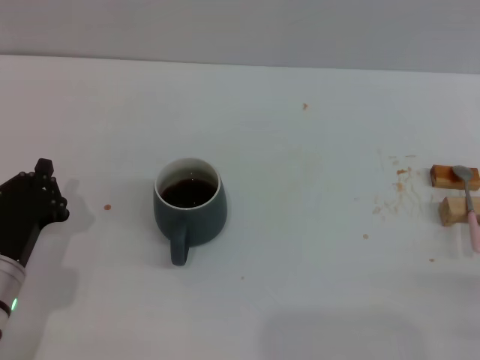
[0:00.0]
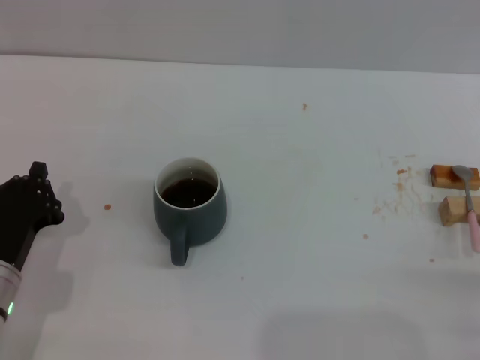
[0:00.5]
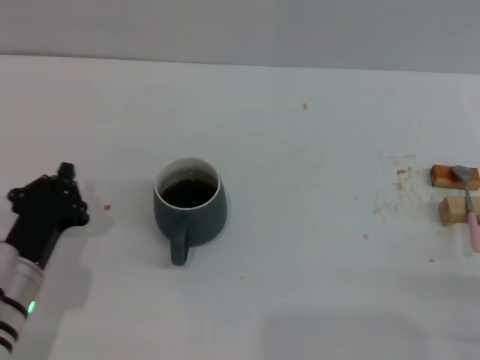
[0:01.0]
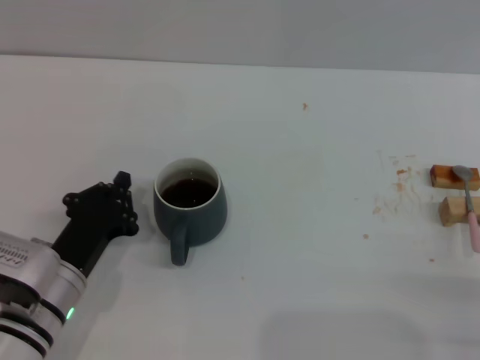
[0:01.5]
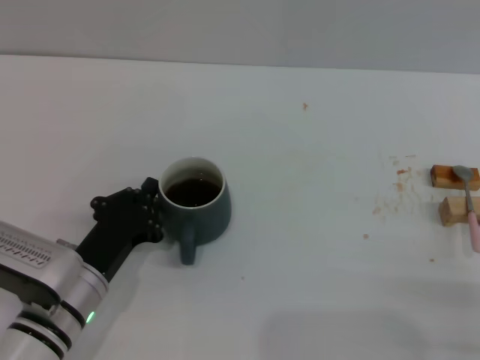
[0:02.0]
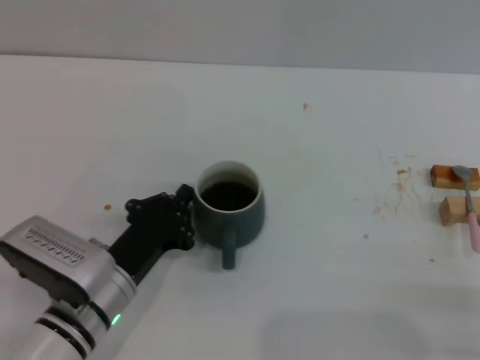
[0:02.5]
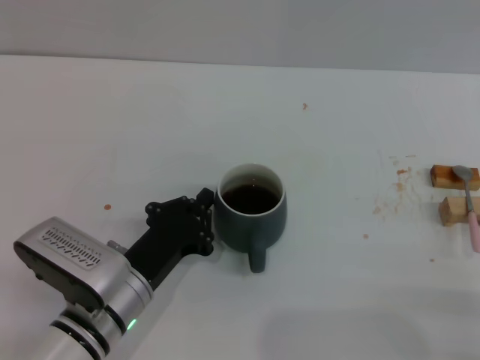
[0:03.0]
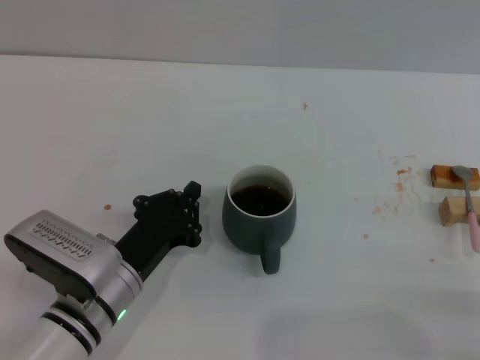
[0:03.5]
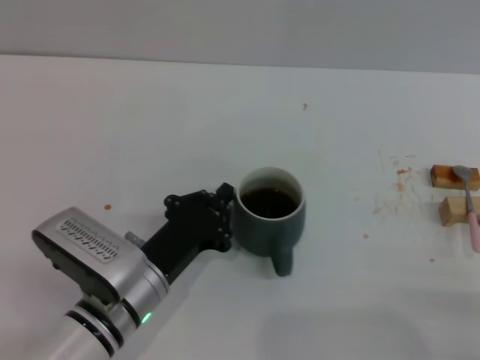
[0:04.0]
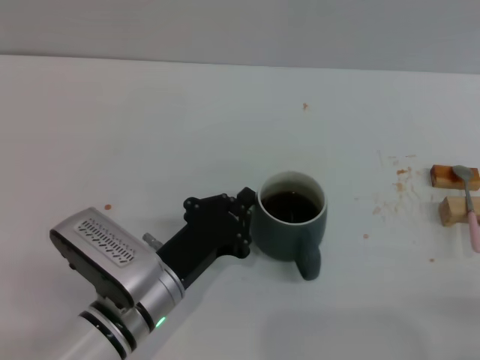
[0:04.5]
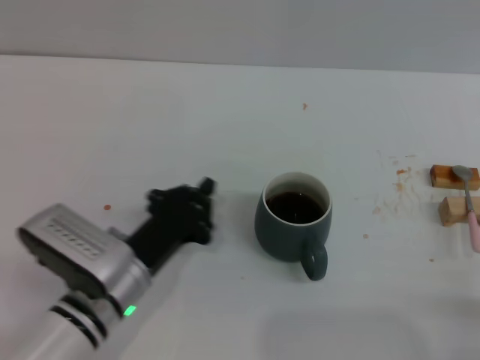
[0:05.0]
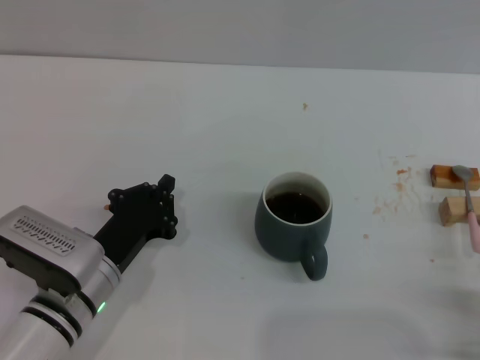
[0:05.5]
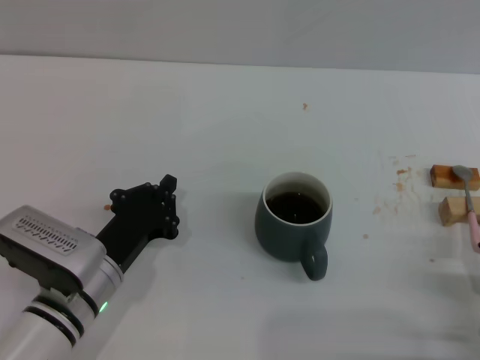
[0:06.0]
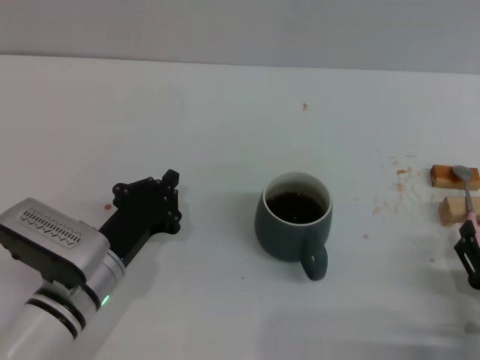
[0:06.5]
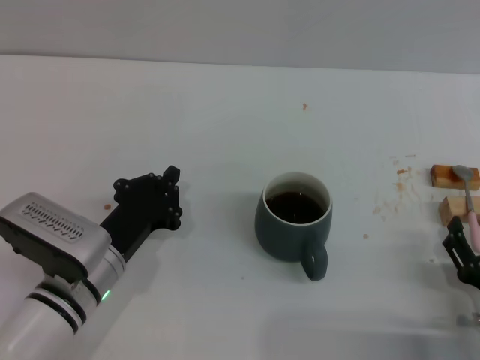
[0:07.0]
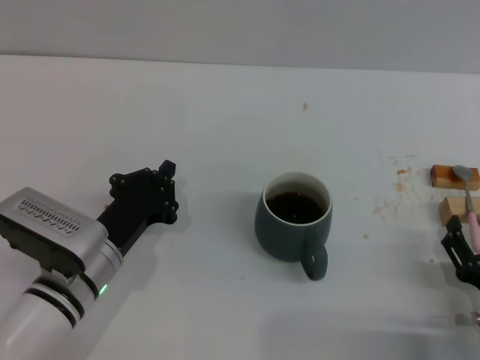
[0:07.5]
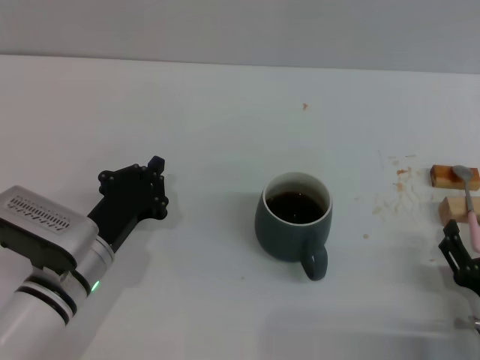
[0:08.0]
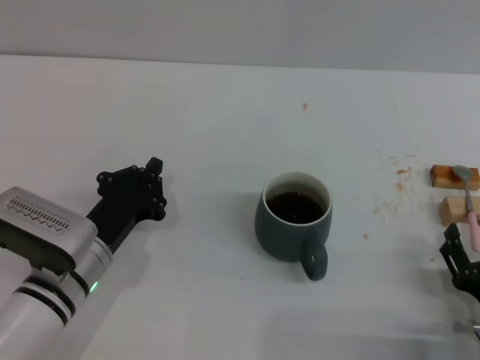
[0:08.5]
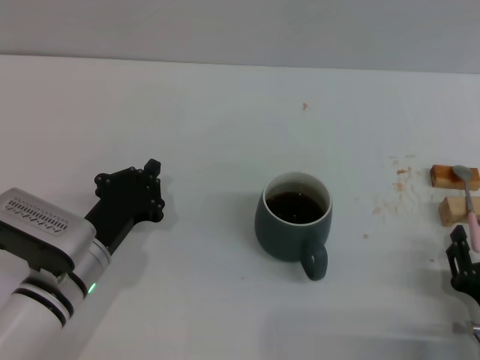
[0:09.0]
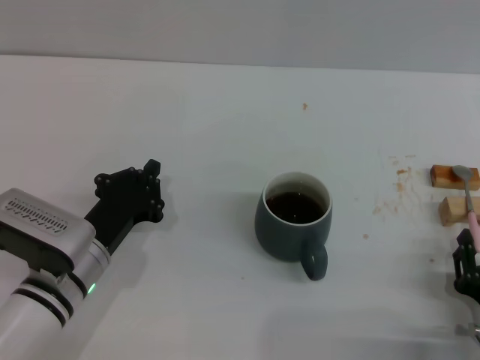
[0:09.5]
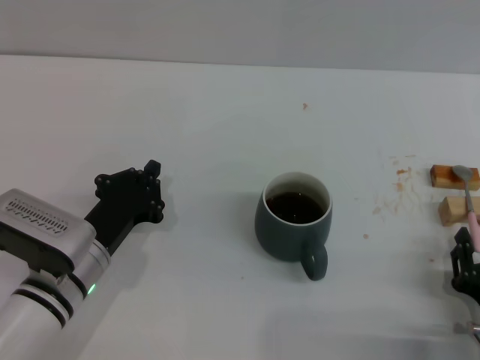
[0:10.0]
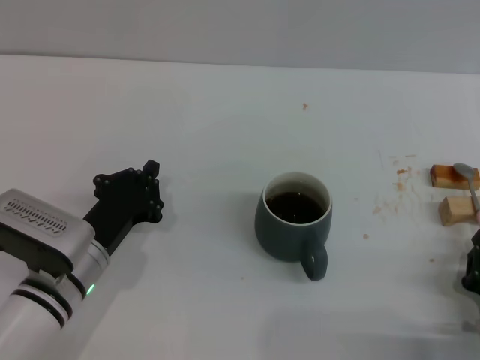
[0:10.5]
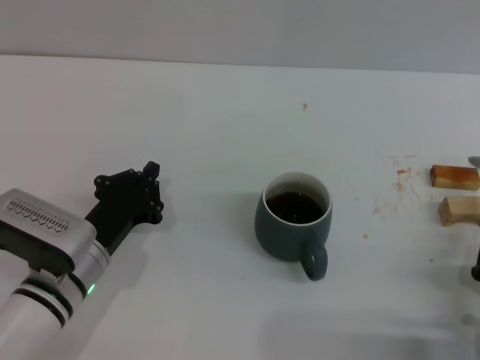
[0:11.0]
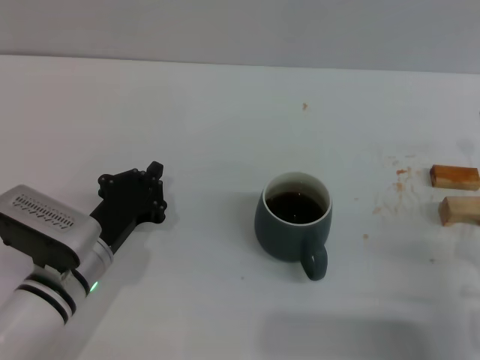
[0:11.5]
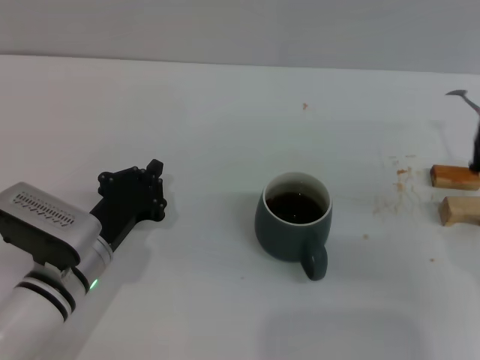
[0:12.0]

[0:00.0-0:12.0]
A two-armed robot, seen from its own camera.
Task of the whole recording: Move the grey cup to the center, lift the pink spoon, stir it three times in the cup, and put the spoon into the cup.
Step, 0:00.0 to 0:05.0: Move the cup with coffee to the center of view with the left gripper.
0:00.0 to 0:02.0: The left gripper is displaced to the right by approximately 5 cm.
0:02.0 to 0:04.0: The left gripper goes some 5 cm to the right.
0:04.0 to 0:06.0: The right gripper moves approximately 5 cm.
0:06.0 to 0:08.0: There are only small adjustments of the grippers.
0:08.0 to 0:10.0: The right gripper closes up.
0:10.0 to 0:12.0: The right gripper is displaced upward and forward by some 15 cm.

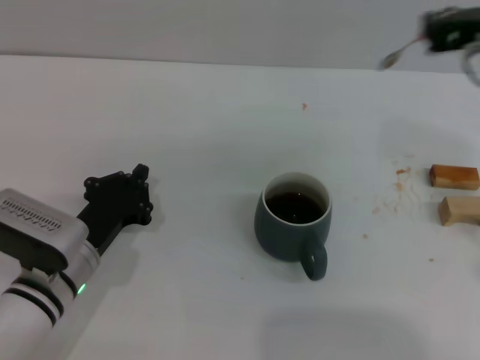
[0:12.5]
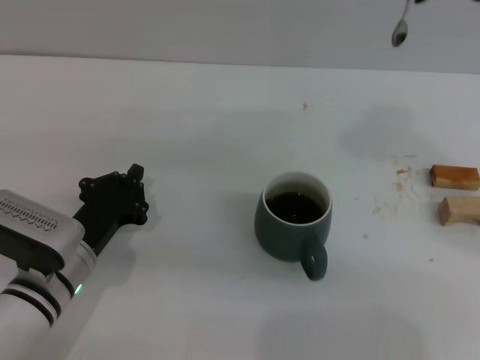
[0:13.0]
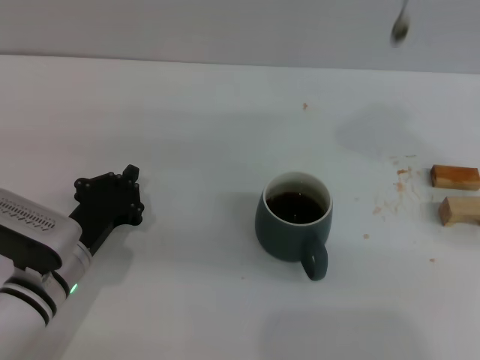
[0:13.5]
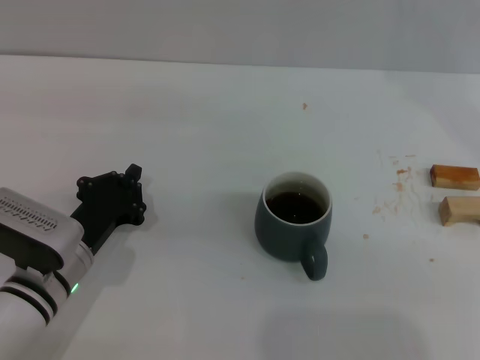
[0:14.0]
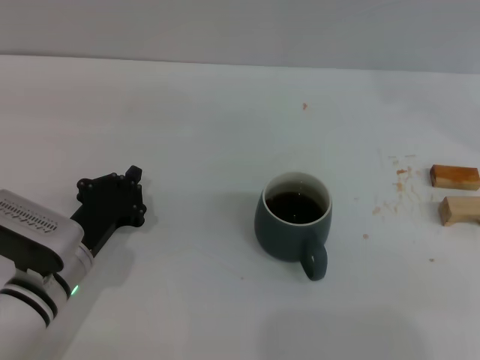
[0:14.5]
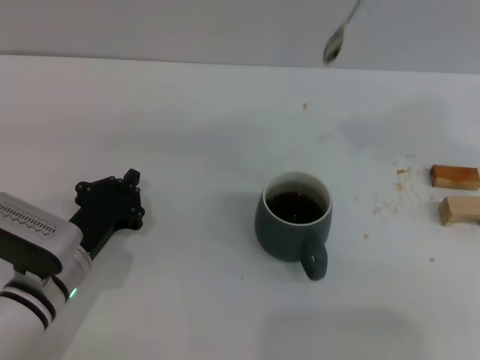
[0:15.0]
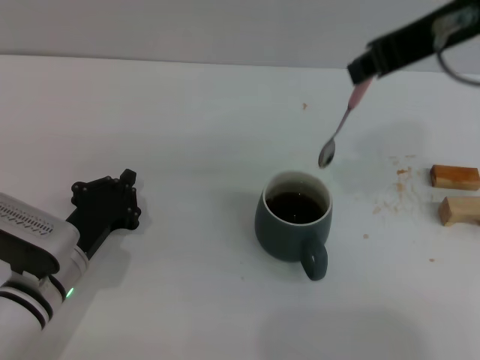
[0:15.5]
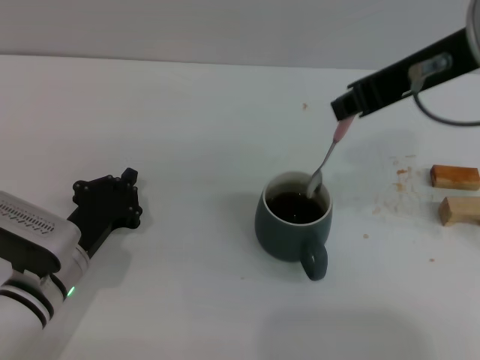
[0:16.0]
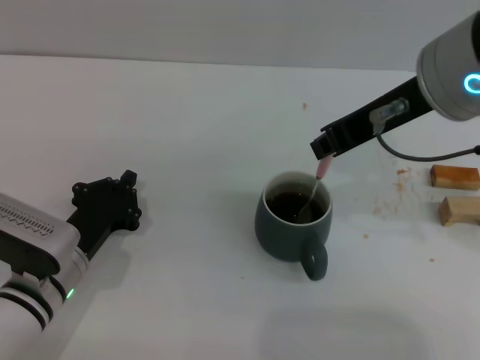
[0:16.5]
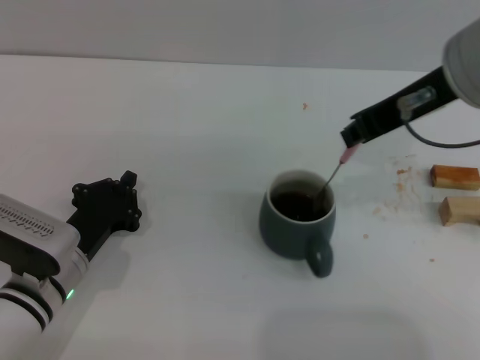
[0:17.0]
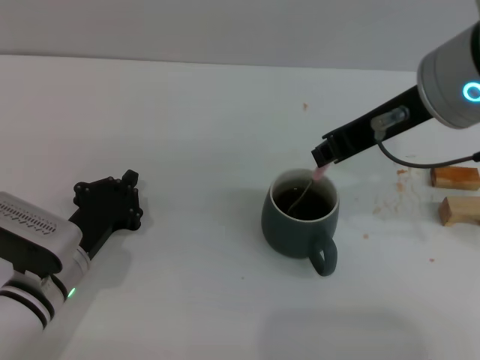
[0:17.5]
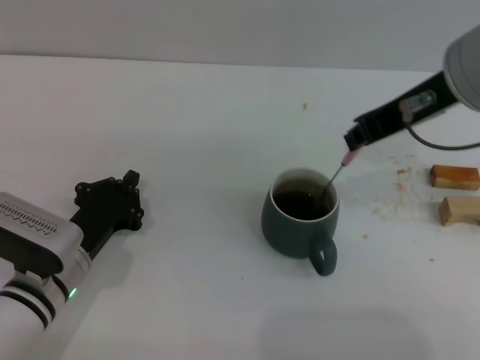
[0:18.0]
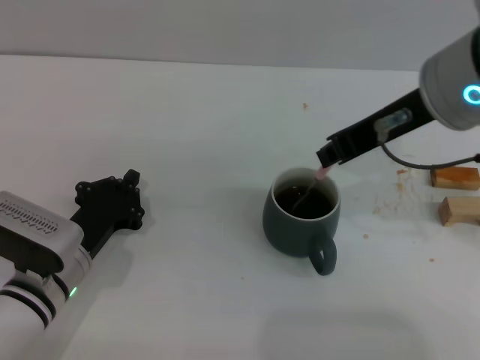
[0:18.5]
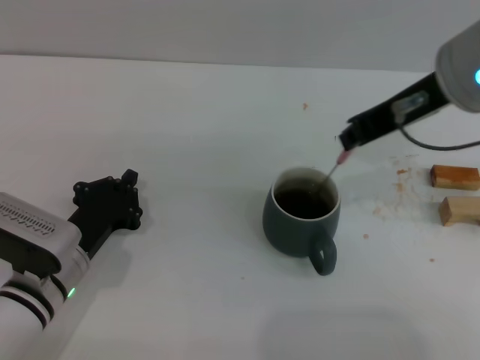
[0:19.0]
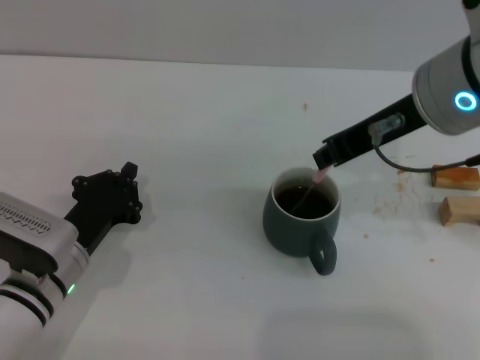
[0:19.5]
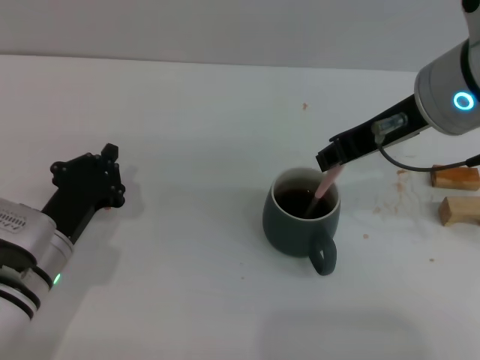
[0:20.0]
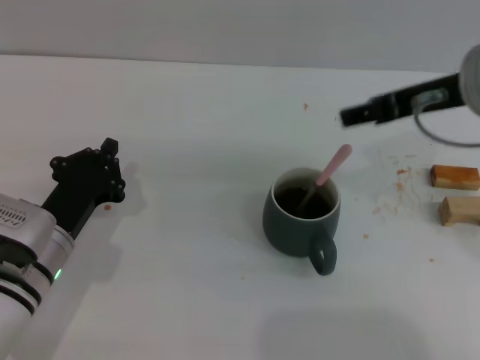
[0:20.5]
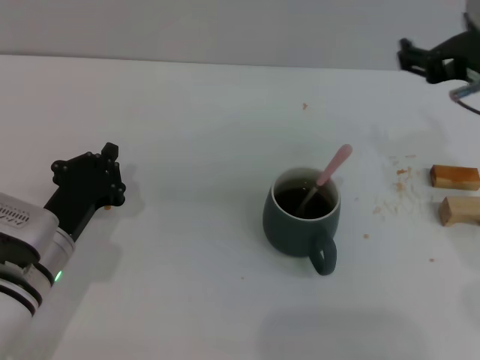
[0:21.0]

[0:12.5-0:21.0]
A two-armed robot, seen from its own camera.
Task of the whole recording: Move the grey cup to the center, lift the pink spoon, stir it three times in the cup, and put the spoon into the cup.
Step, 0:12.5 to 0:20.0: Stir the coffee in the cup with the right gripper.
0:12.5 to 0:14.5: The right gripper heads upward, covering about 20 cm.
0:14.5 to 0:16.5: The right gripper heads downward, covering some 20 cm.
0:16.5 to 0:19.0: The grippers stay close to where they were, moving slightly.
0:19.0 to 0:21.0: The right gripper is displaced downward by about 5 cm, and opens up.
